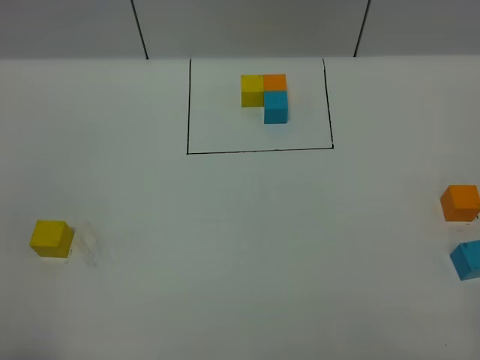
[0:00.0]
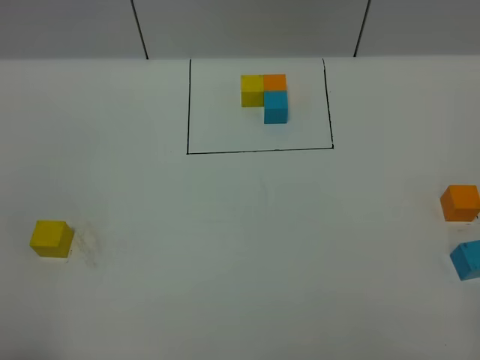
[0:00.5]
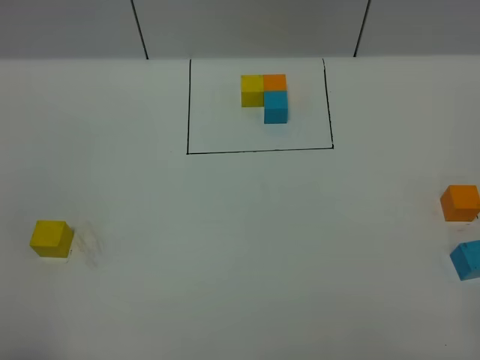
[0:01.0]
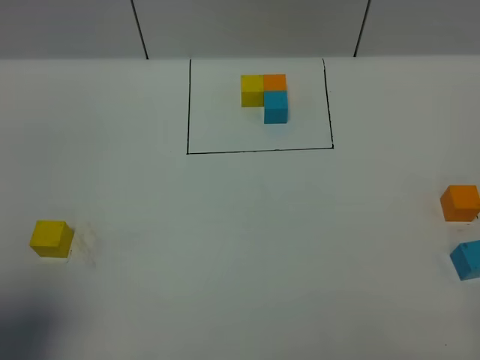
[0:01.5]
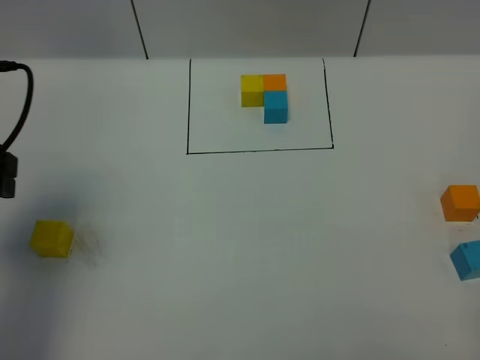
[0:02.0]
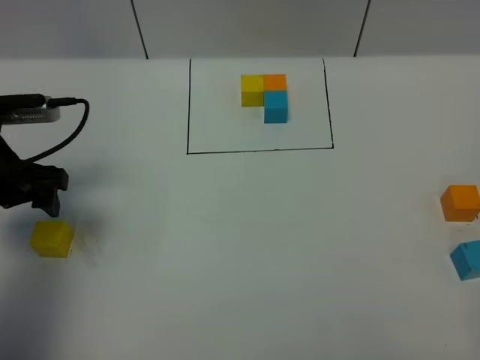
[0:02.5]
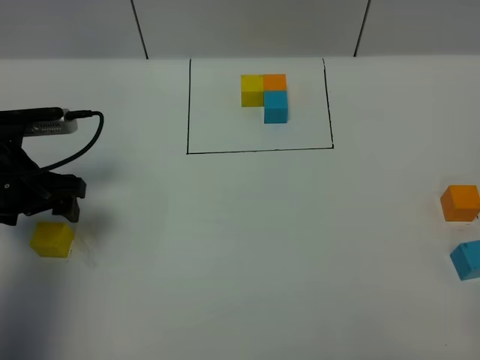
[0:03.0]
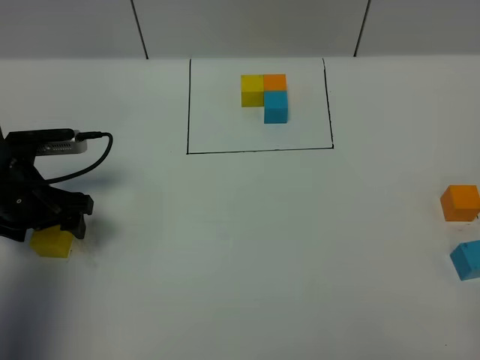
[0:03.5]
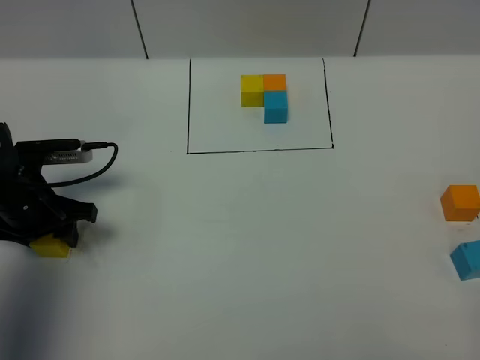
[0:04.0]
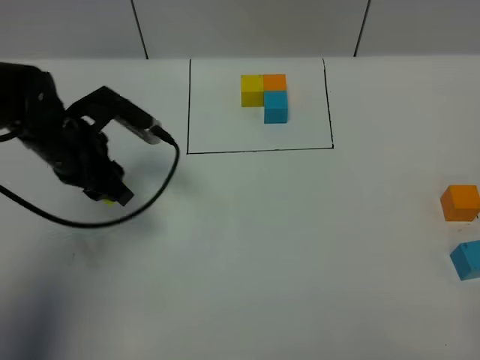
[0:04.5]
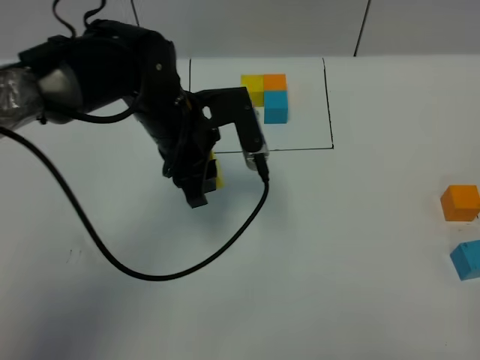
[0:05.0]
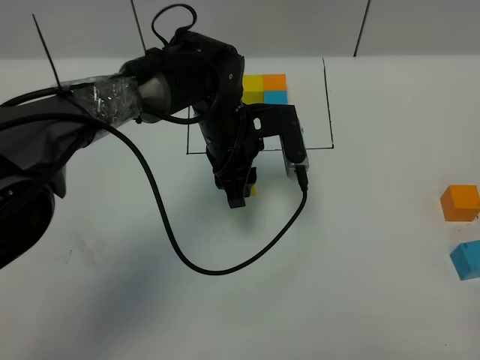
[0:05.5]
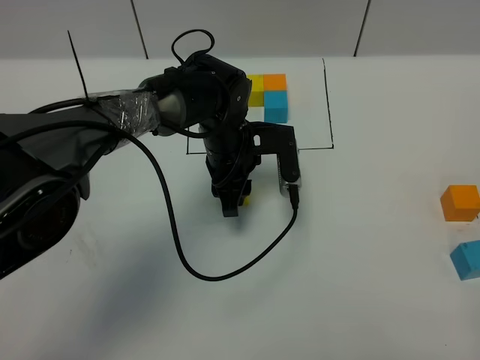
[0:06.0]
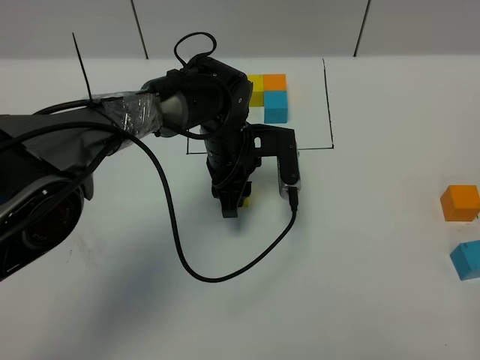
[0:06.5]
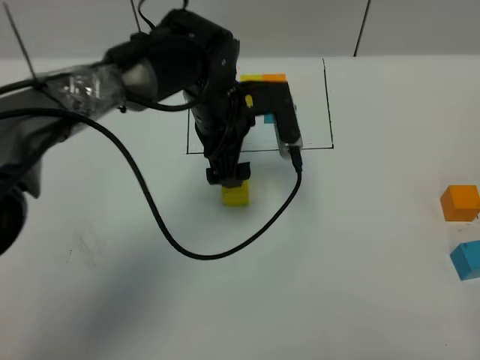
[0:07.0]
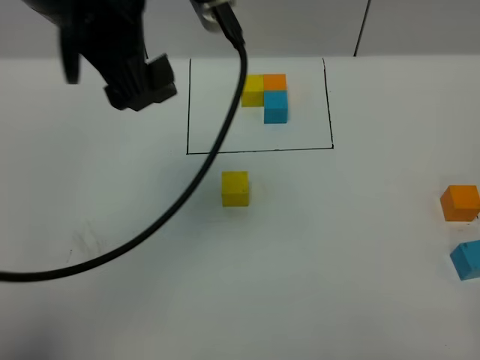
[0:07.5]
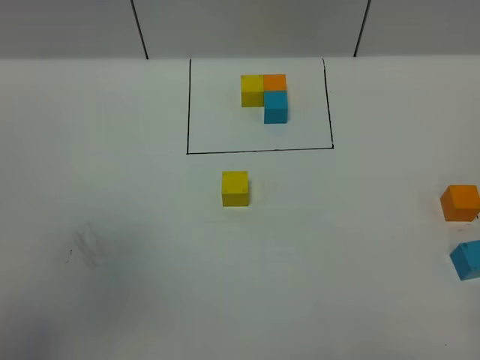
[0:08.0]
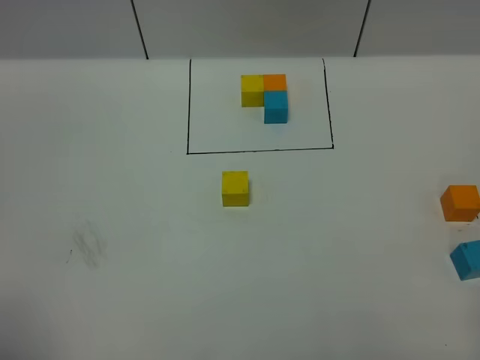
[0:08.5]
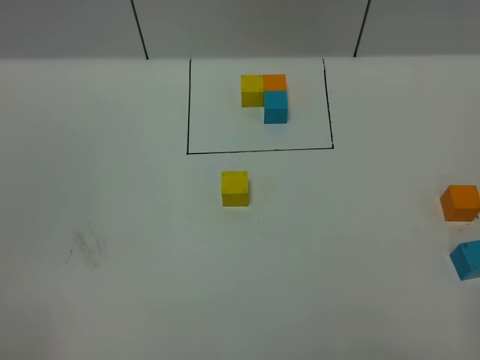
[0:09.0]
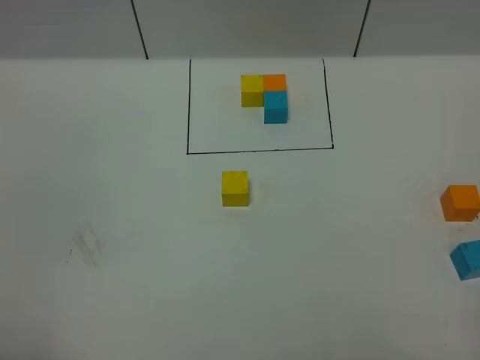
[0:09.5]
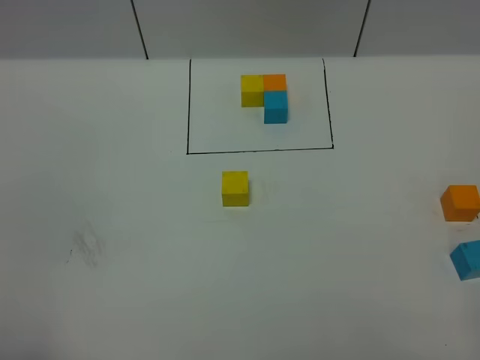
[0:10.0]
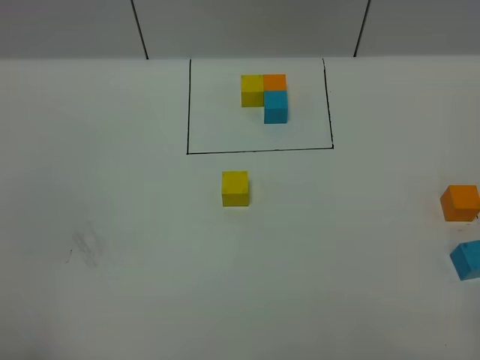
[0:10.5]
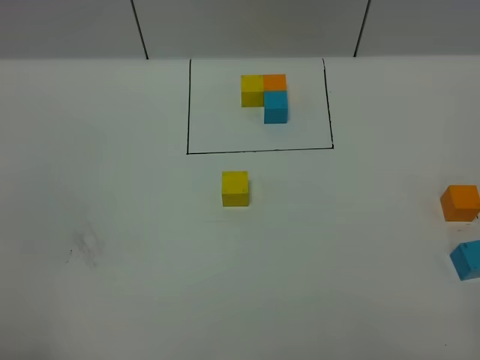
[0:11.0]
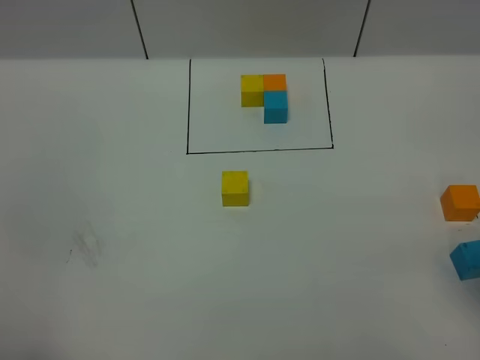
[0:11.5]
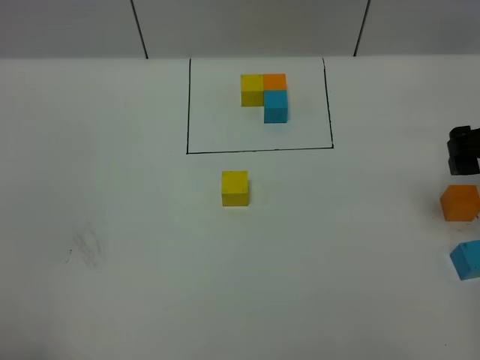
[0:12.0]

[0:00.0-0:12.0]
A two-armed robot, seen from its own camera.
Task of the whole recording: According to the building block template in front, assemble the scattered blocks together.
Step, 0:02.0 to 0:06.5: Put the yellow cube in the center of the table.
0:00.0 to 0:02.0: The left gripper goes approximately 25 cm forward.
0:02.0 to 0:04.0: The left gripper goes some 15 cm downward, and closes.
0:04.0 to 0:06.0: The left gripper is displaced to the right by some 25 cm.
0:06.0 to 0:08.0: The left gripper moves upward, backward and to the left, about 50 cm, and opens its fingers.
0:08.0 to 0:10.0: The left gripper is displaced downward and backward by approximately 25 cm.
0:10.0 to 0:12.0: The right gripper travels forward by approximately 30 cm, and opens.

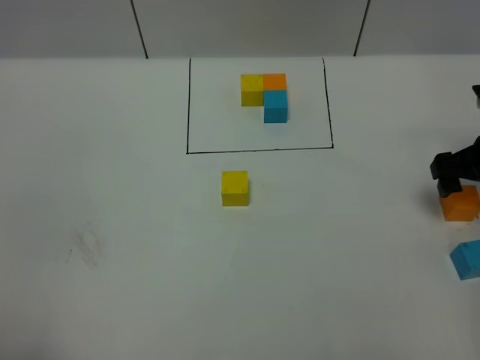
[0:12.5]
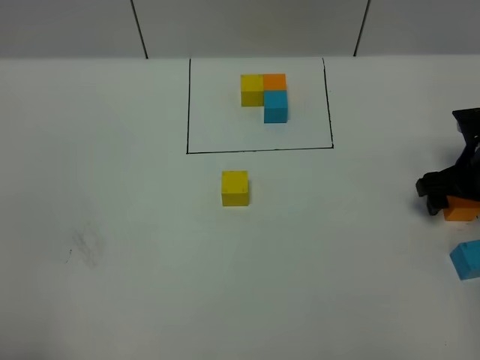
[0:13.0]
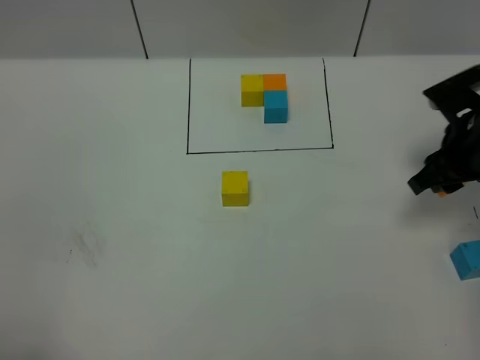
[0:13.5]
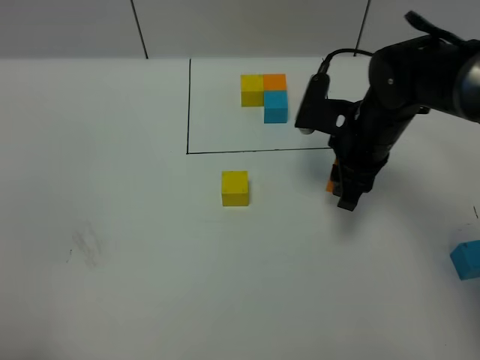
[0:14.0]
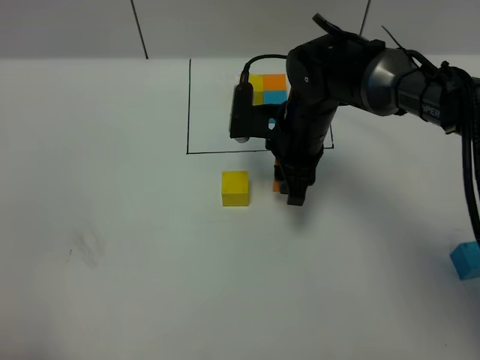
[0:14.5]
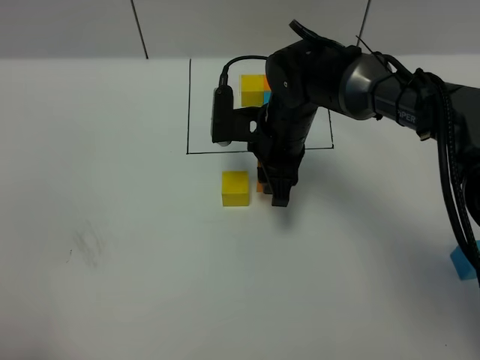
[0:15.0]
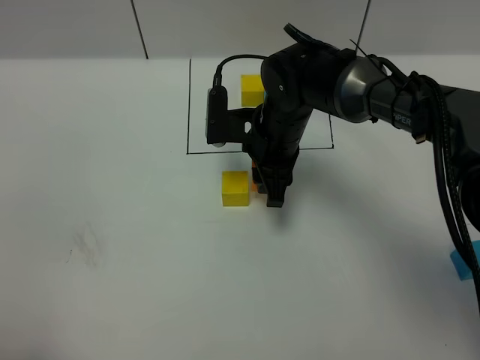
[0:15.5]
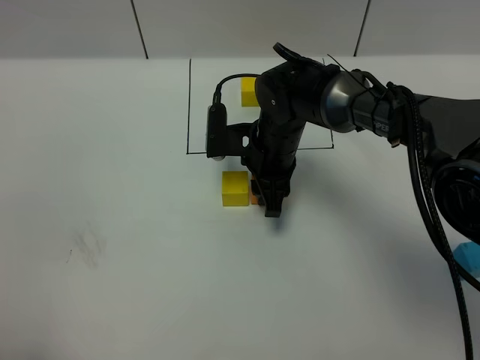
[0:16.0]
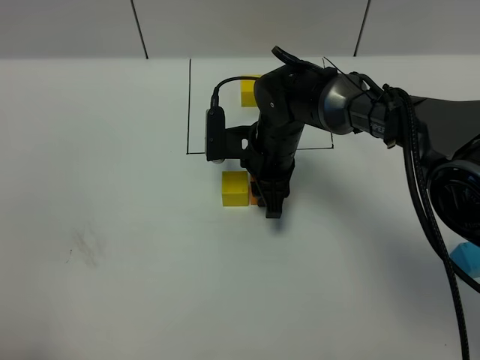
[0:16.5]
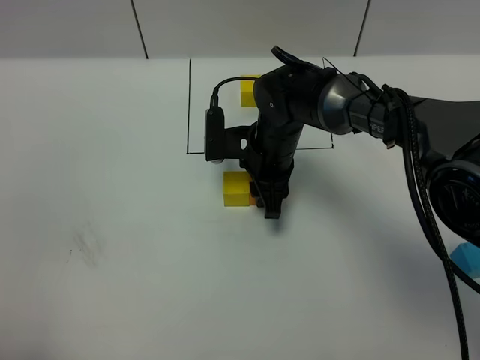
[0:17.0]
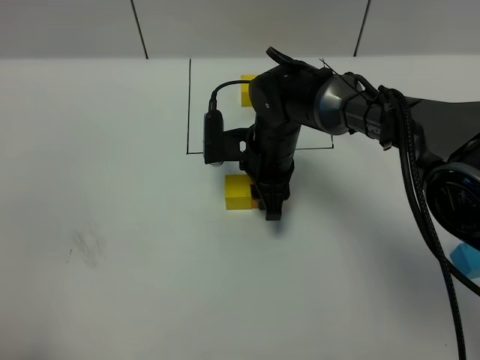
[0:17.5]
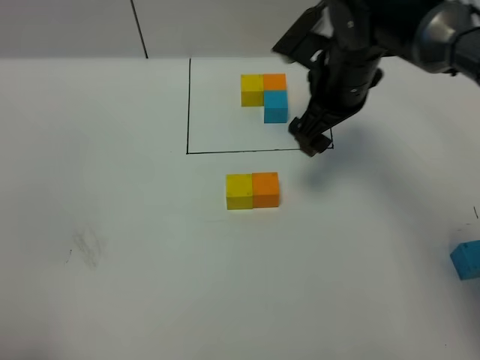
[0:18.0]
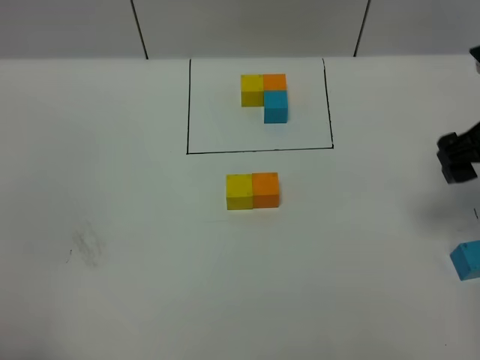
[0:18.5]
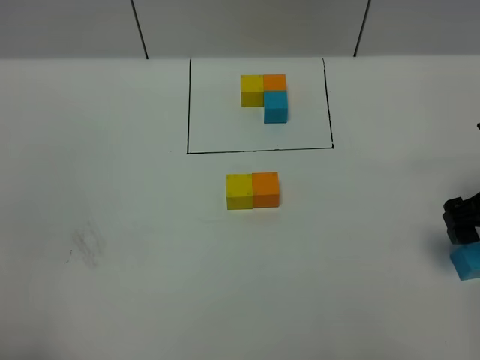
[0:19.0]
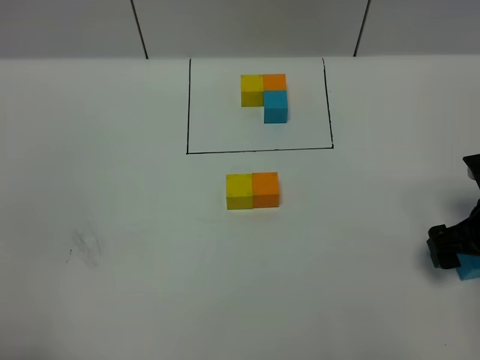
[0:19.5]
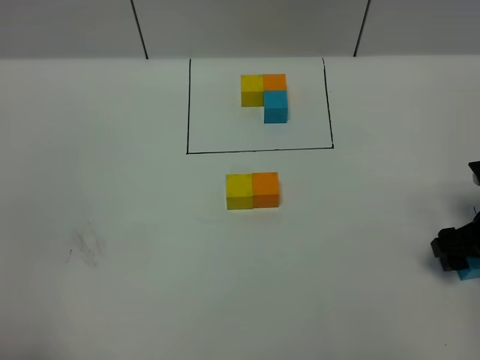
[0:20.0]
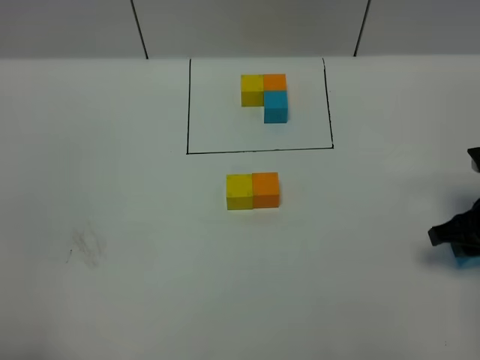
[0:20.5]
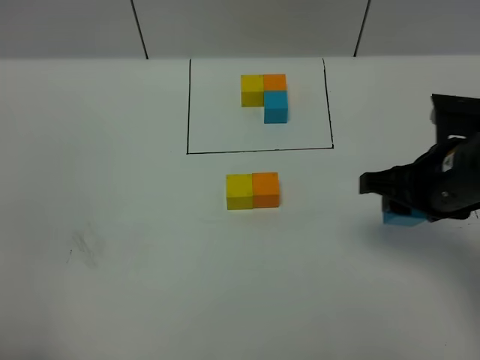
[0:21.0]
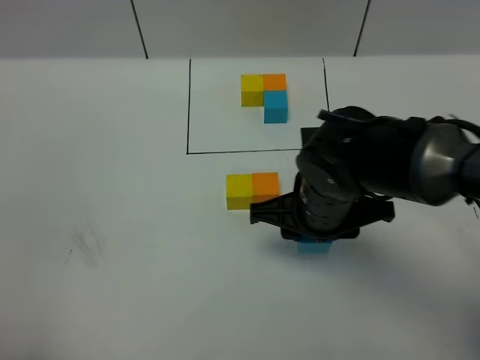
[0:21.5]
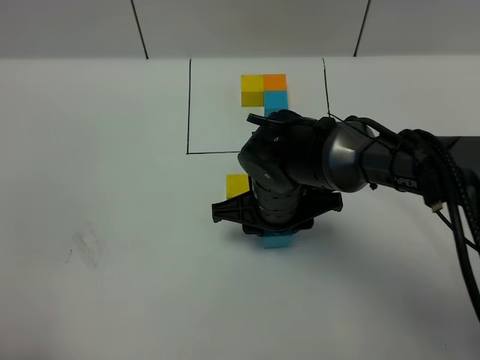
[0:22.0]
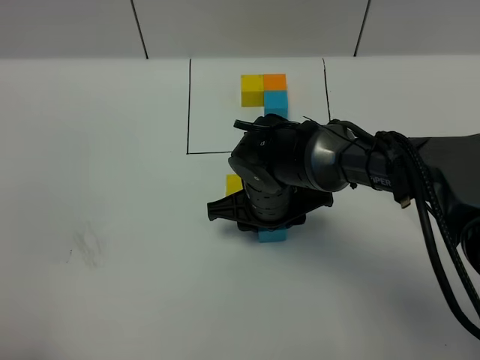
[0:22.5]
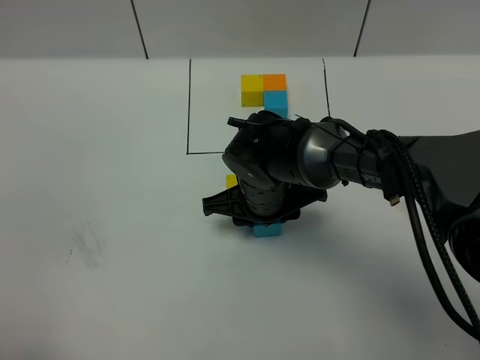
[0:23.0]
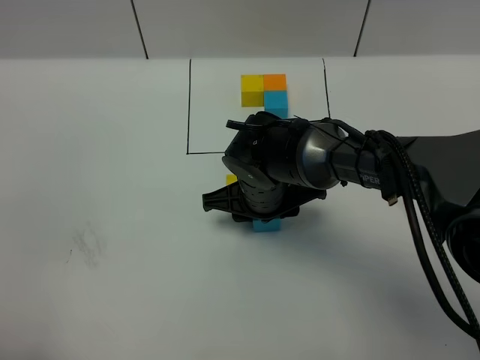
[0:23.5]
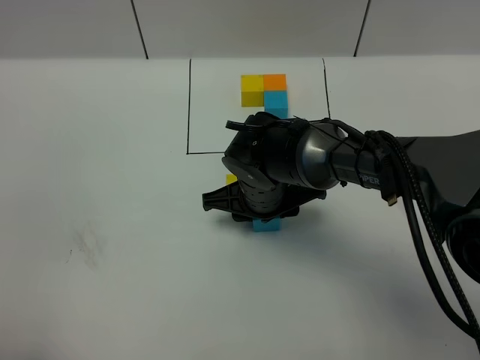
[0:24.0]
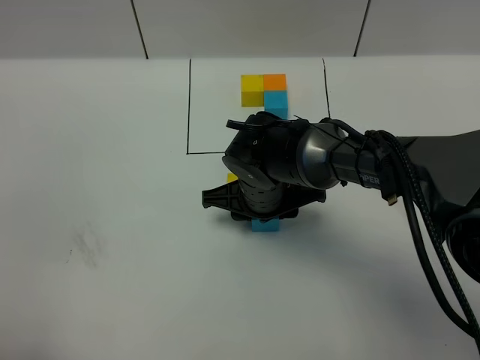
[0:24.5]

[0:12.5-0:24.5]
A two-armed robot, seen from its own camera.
Task of the whole recording: According to the building block template in front, assemble the scattered blocks together.
Step, 0:12.5 to 0:17.5: Put the orange cube on the right of the yellow cube.
0:12.5 to 0:14.5: The right gripper heads to the left, covering approximately 25 cm, and closes up.
0:14.5 to 0:16.5: The right gripper ends up roughly 5 cm from where it was.
0:16.5 to 0:18.5: The right gripper moves to the right and upward, approximately 30 cm, and opens up.
0:18.5 to 0:20.5: The right gripper heads downward, covering approximately 10 cm, and closes its fingers.
0:20.5 to 0:22.5: The right gripper moves to the left, approximately 25 cm.
0:22.5 to 0:24.5: The grippers make only small movements.

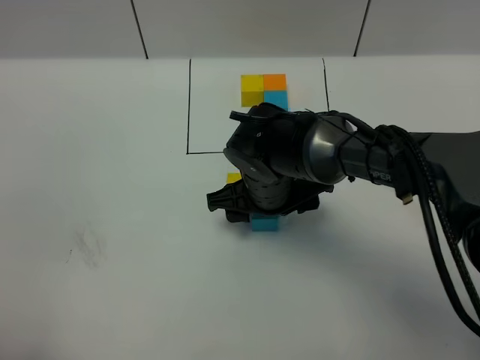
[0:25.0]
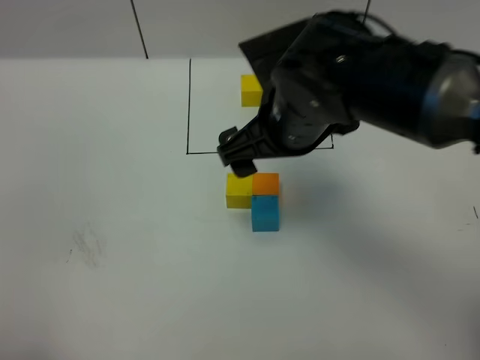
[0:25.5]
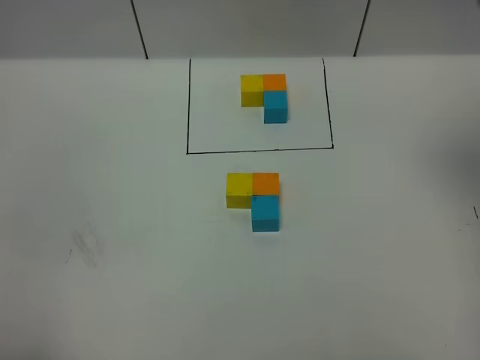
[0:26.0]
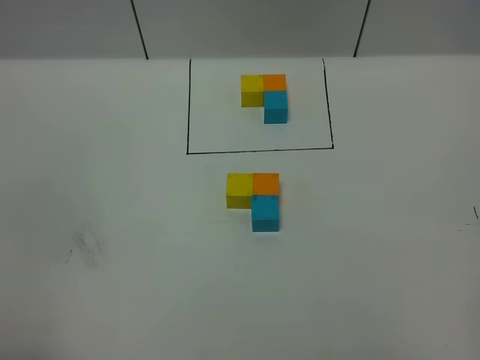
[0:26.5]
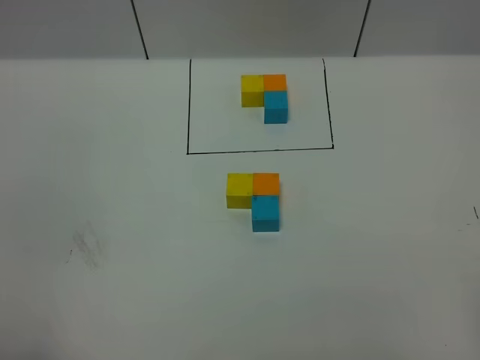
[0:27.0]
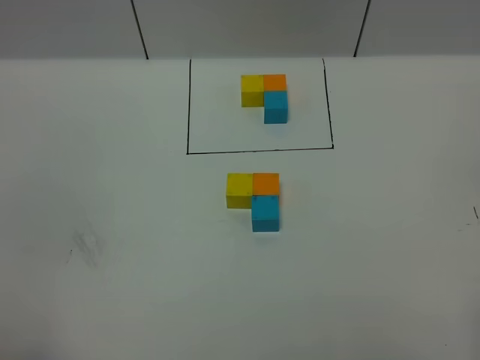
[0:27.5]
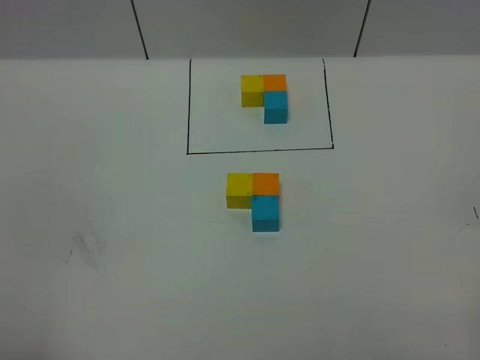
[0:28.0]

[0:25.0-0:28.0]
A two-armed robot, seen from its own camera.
Task of the whole recording: According to the building block template in front, assemble the scattered blocks together.
0:25.0 to 0:26.5: The right gripper heads upward, to the right and backward, covering about 50 cm.
